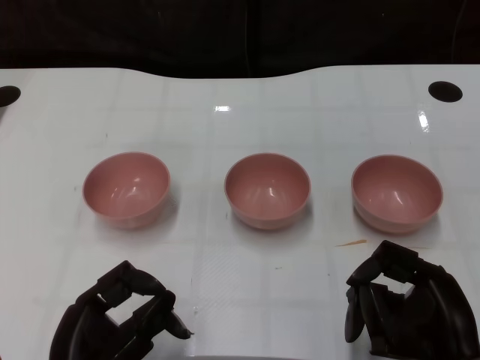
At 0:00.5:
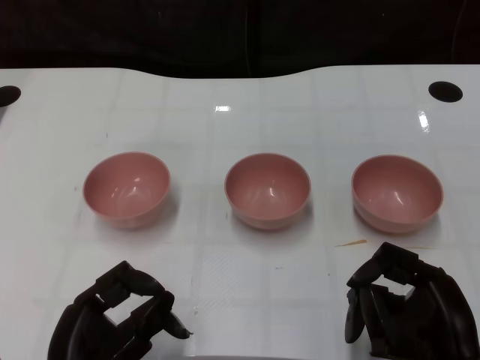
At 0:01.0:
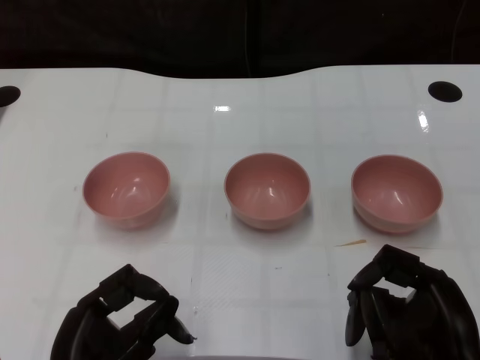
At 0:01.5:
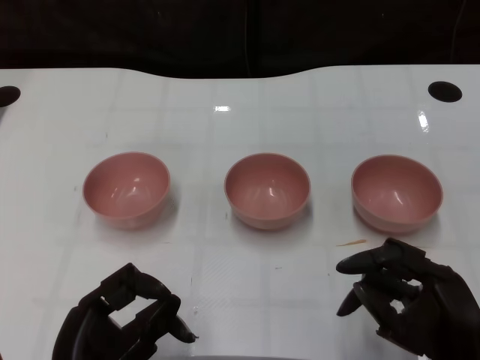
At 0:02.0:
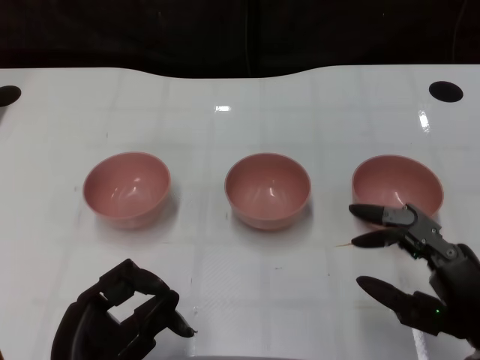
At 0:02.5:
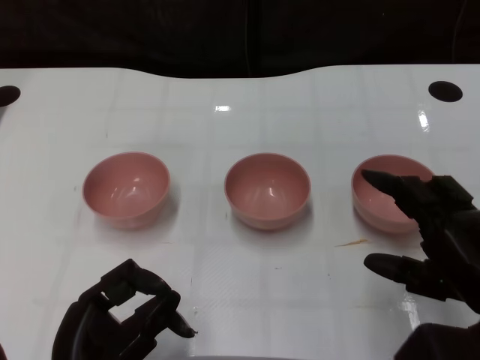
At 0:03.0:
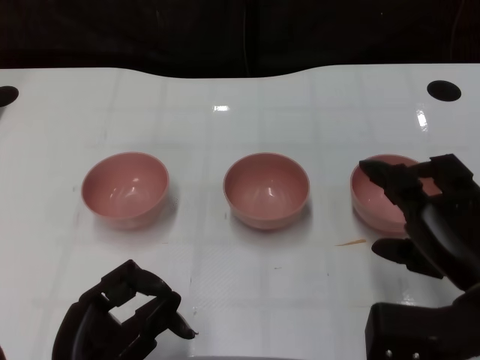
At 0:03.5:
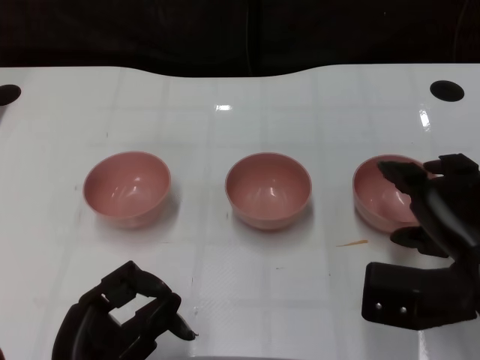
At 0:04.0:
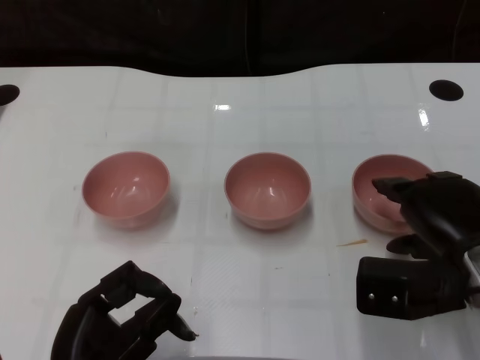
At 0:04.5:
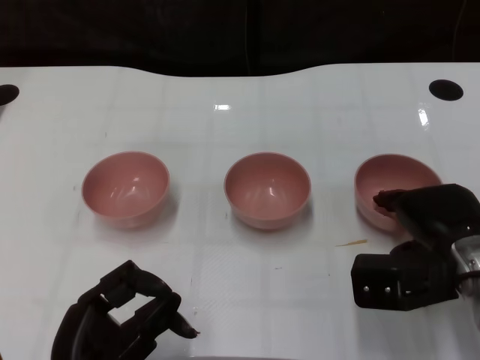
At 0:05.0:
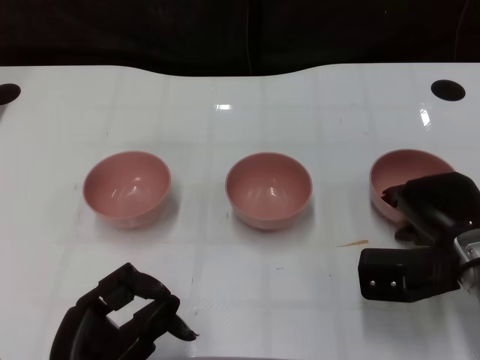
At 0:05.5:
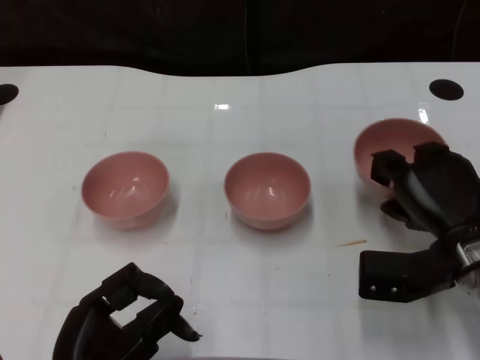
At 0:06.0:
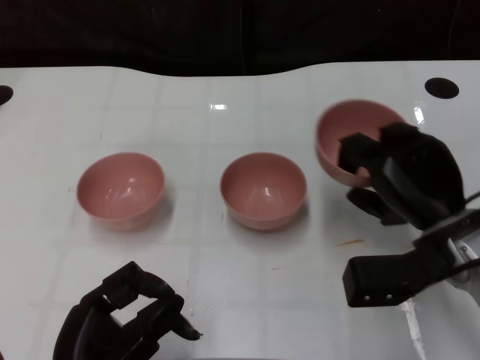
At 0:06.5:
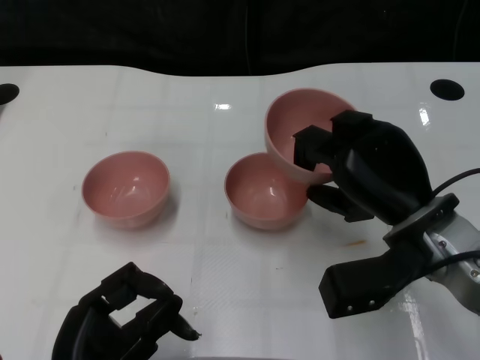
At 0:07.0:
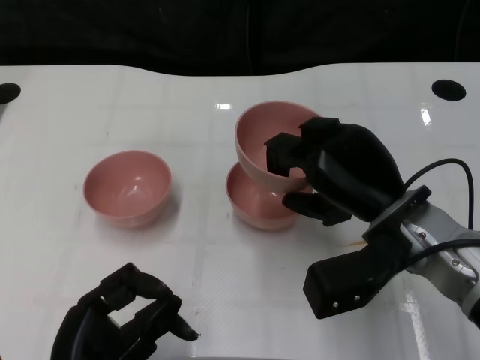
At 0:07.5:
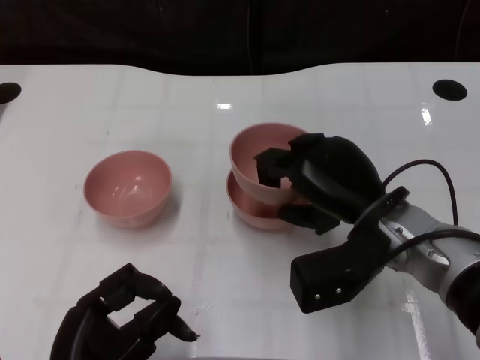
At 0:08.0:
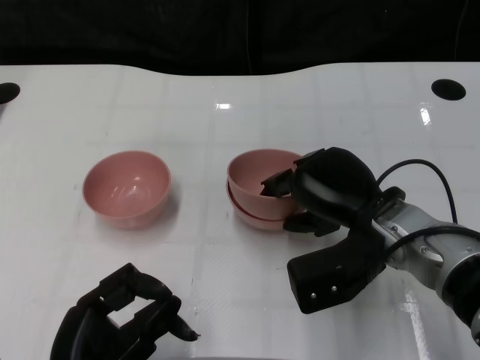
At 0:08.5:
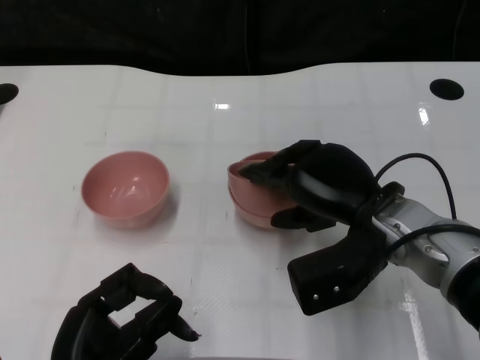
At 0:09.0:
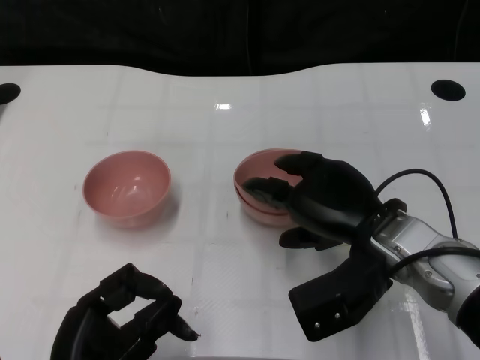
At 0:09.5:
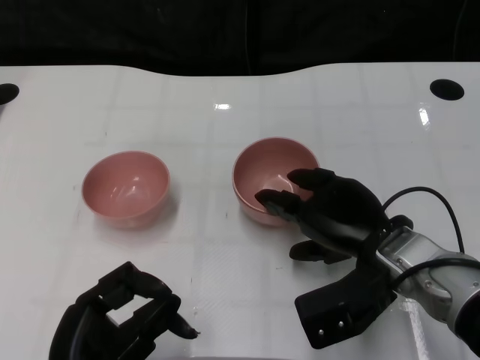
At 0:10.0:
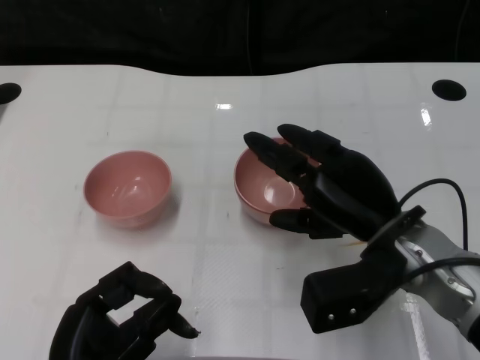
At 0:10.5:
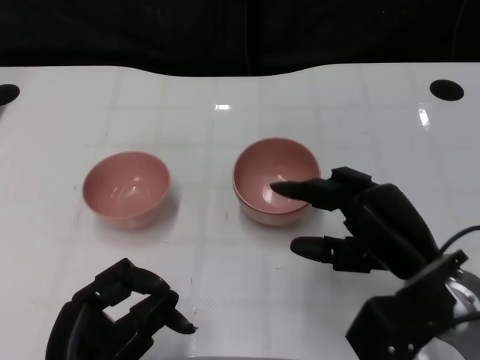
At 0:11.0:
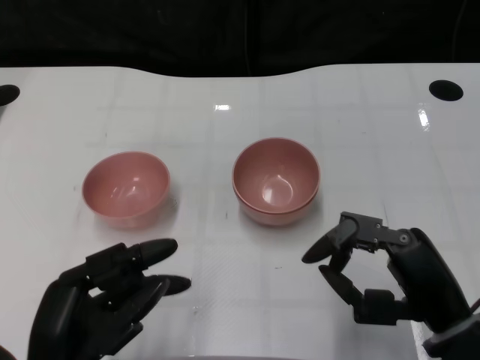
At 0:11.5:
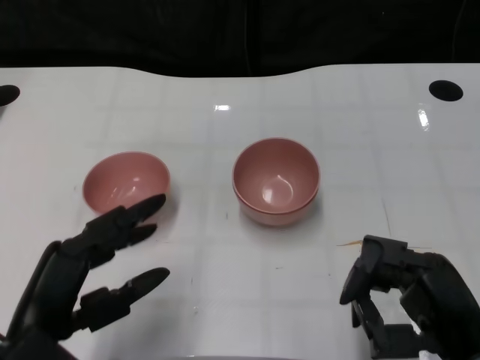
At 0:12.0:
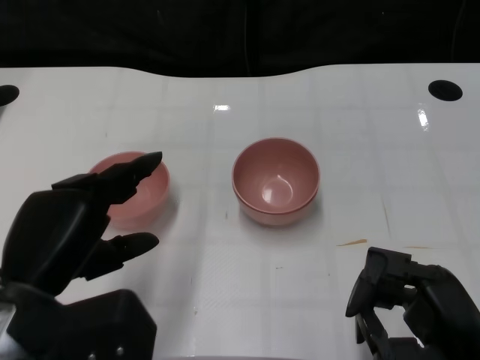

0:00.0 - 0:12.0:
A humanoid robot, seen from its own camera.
Task of the whole recording: Pick up the bowl on one side of the table and place it on top of the middle bowl, then pick up the bowl on the other side of the table and place it on top of the middle bowls.
Step, 0:01.5 - 0:05.0: Grasp the bowl on the right with the right gripper.
Step, 0:05.5 - 0:10.0: Place the bowl on the right onto the bowl in the middle with right gripper.
0:02.0 - 0:04.0: The right hand travels forward by some 10 cm.
0:06.0 - 0:08.0: The right hand is displaced to the left by approximately 5 cm.
0:08.0 - 0:10.0: There are only small adjustments of the hands.
0:10.0 - 0:12.0: The right hand heads backward and to the right, covering some 15 cm. The left hand goes some 10 cm upward and forward.

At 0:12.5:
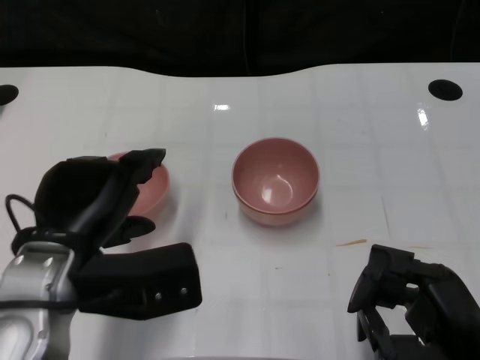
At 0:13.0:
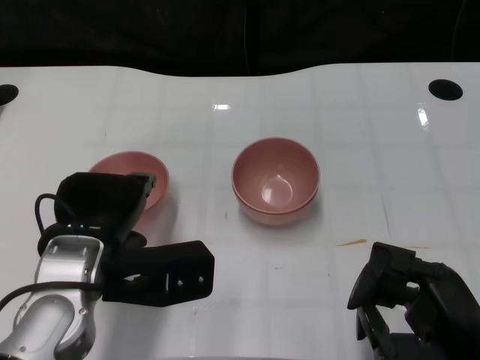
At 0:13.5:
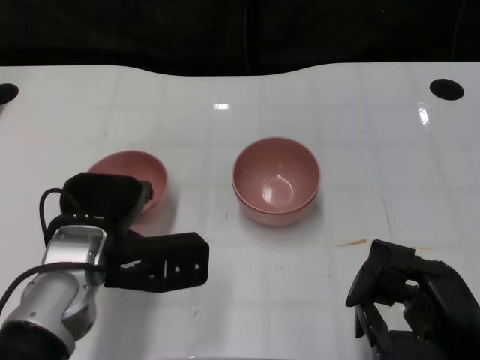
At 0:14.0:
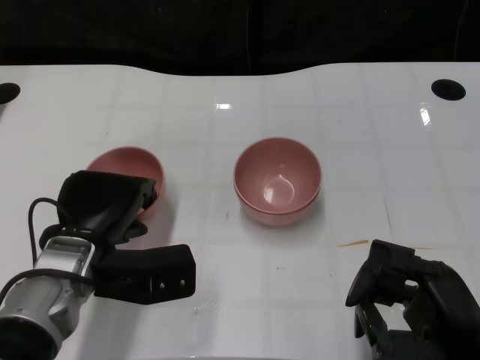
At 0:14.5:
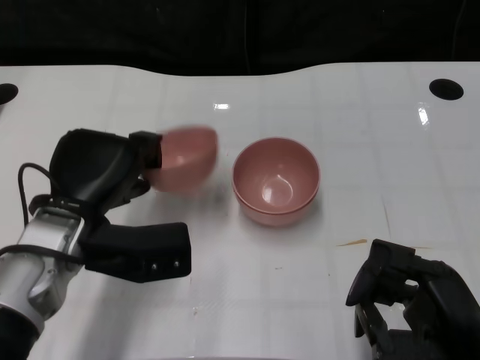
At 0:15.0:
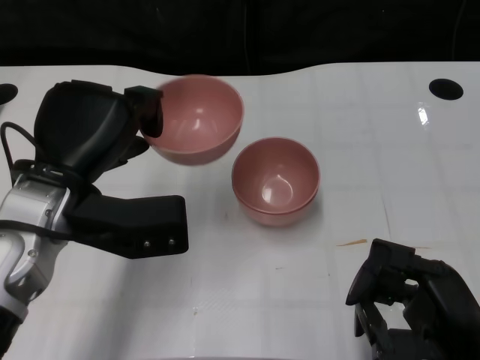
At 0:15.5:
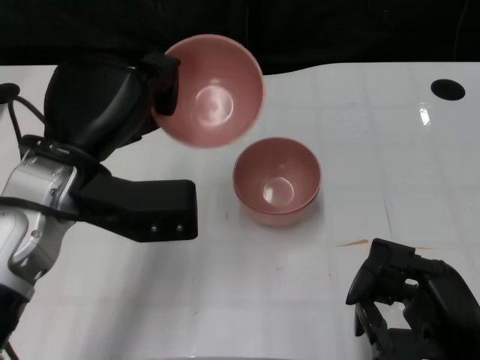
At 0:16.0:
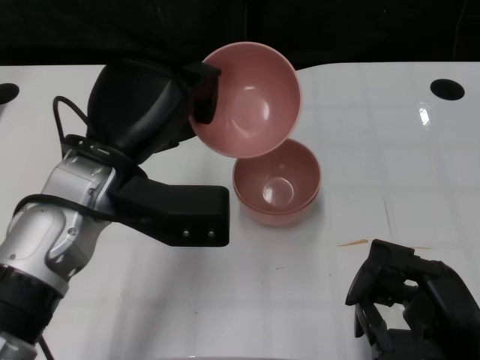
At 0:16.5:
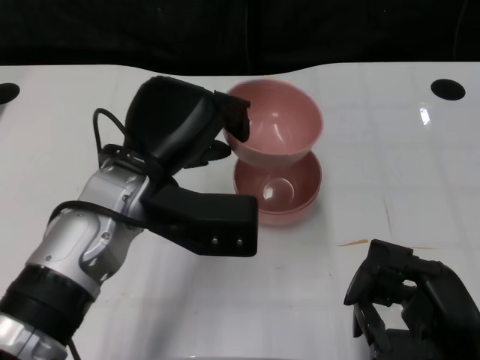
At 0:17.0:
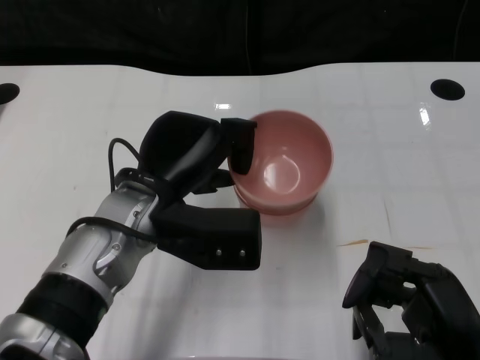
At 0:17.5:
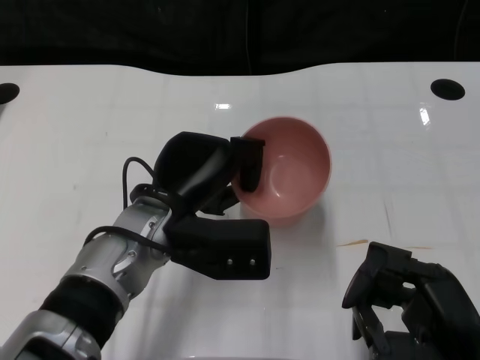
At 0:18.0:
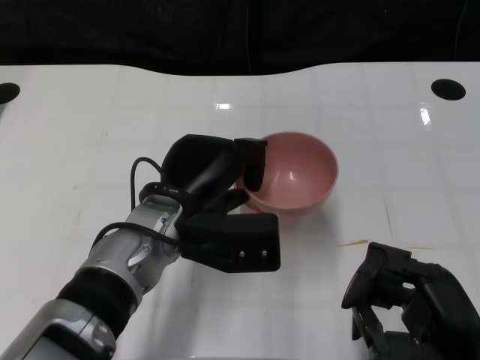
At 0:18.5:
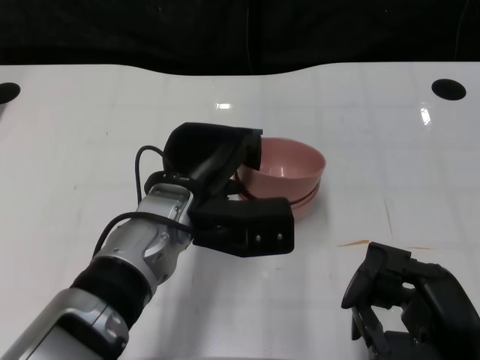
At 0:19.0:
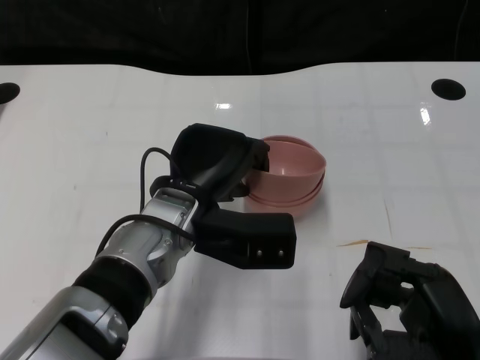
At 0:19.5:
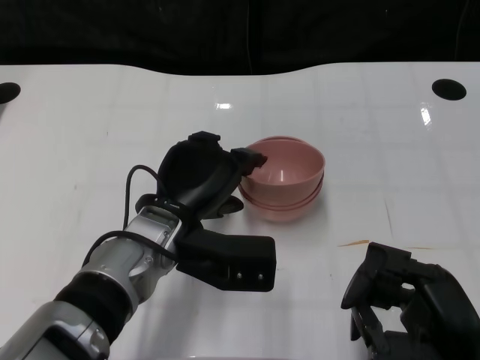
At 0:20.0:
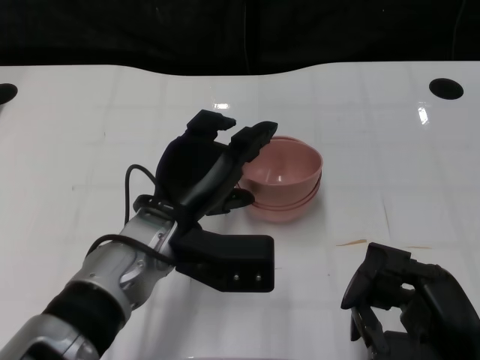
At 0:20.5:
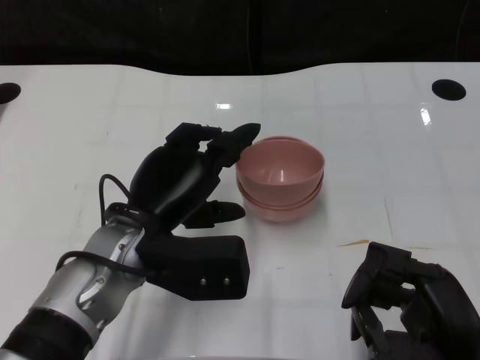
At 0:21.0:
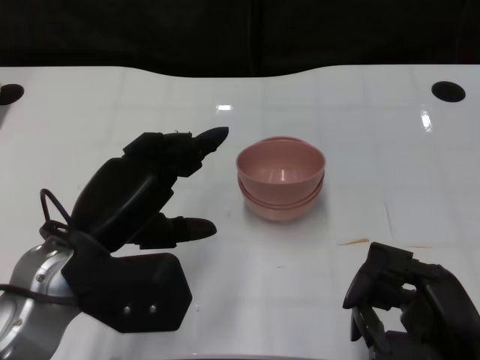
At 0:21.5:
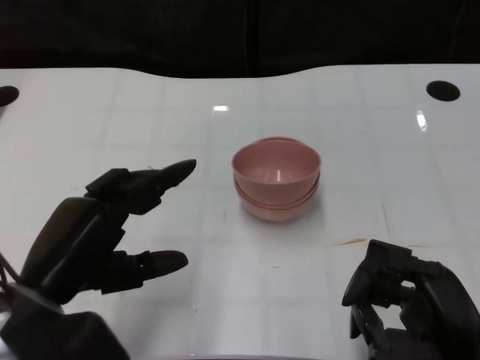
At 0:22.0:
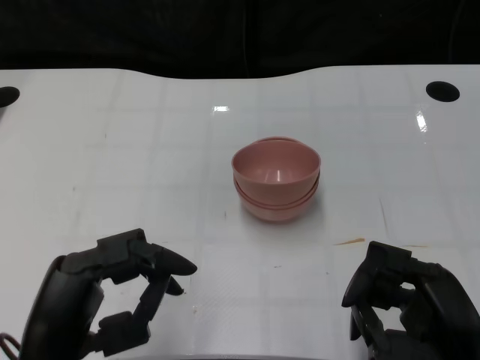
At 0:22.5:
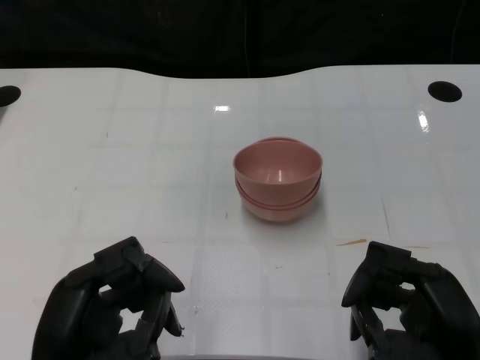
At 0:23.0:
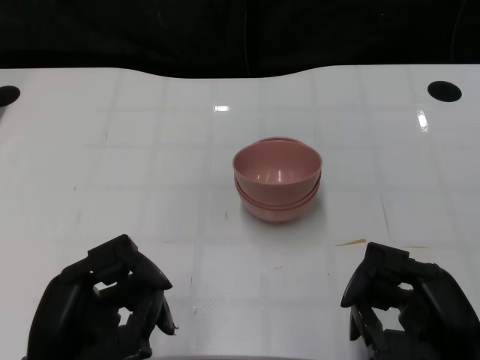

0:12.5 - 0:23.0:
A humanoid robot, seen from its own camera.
Task of the whole recording: Pick up the bowl on one side of the table and place it on top of the middle bowl, then pick up the bowl on the other side of the table and place it on top of the middle bowls.
Step, 0:15.0 - 0:20.5: Place the bowl on the left onto the bowl in the middle with left gripper.
0:12.5 - 0:14.5: The left hand heads forward, covering about 5 cm.
0:14.5 - 0:16.5: The left hand moves to the right and upward, approximately 10 cm.
0:16.5 - 0:19.0: The left hand travels downward by some 5 cm.
0:19.0 - 0:21.0: The left hand moves to the left and backward, about 10 cm.
0:21.0 - 0:23.0: The left hand shifts some 10 cm backward and downward.

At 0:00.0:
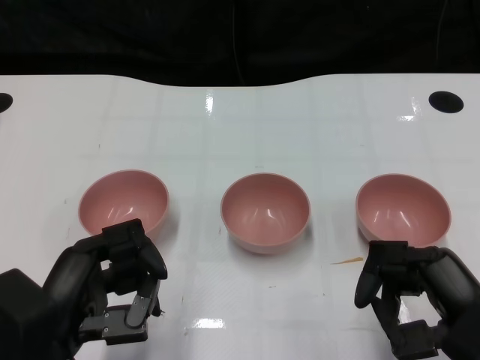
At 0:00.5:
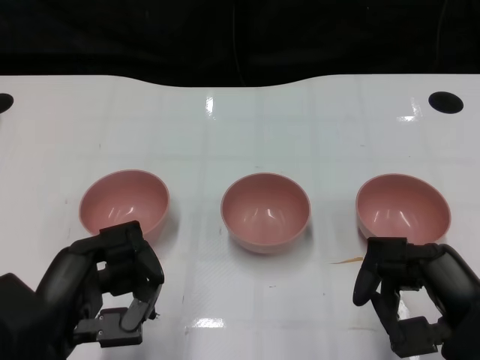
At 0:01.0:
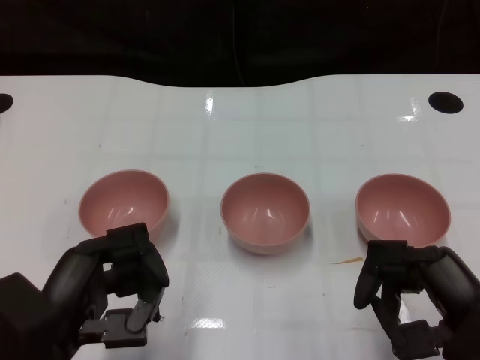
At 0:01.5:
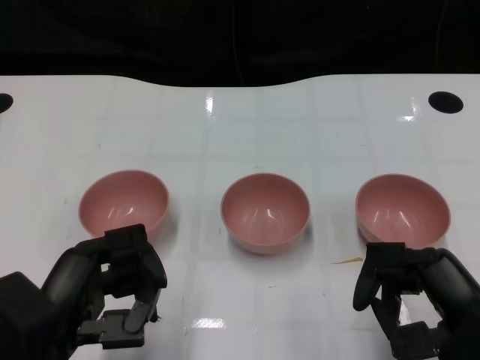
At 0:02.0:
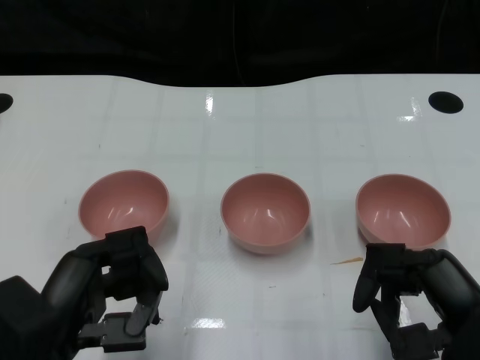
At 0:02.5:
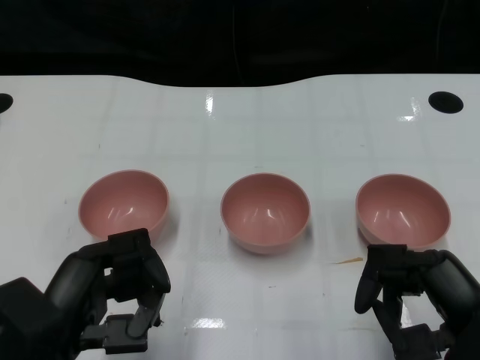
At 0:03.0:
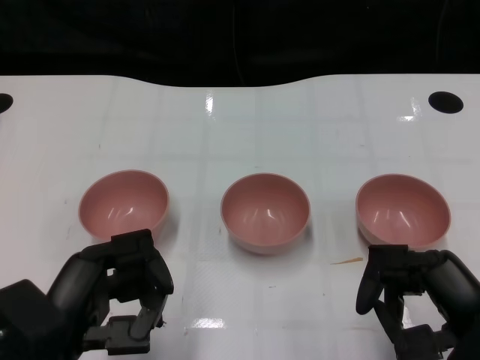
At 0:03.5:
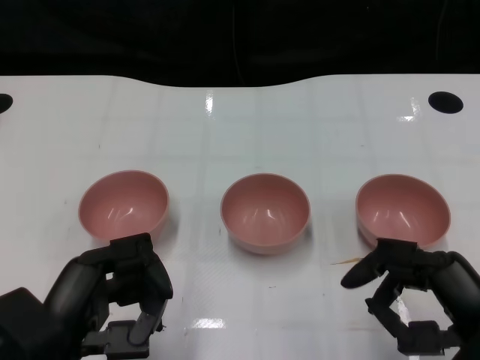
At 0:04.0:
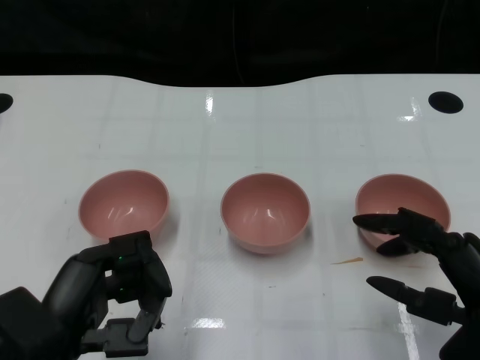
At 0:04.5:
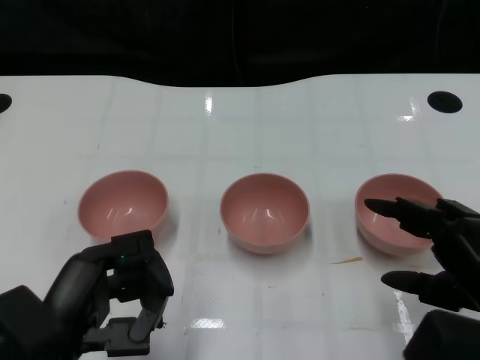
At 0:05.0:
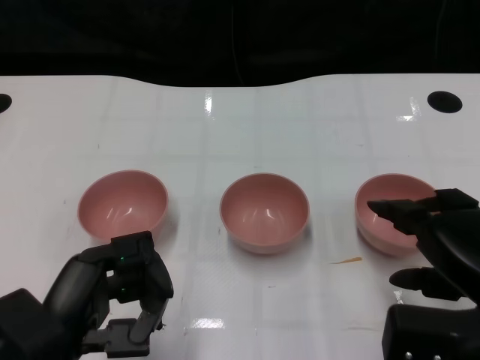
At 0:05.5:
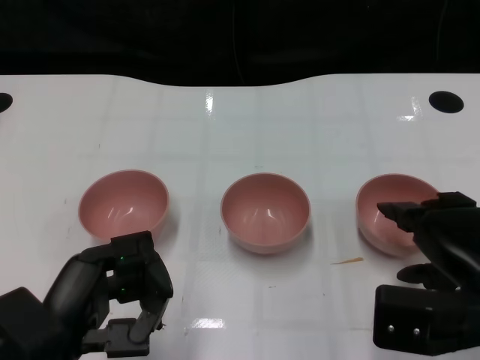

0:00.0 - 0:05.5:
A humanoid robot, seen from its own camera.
Task of the whole recording: Pick up the bowl on one side of the table and place it on top of the middle bowl, then pick up the bowl on the other side of the table and place it on top of the middle bowls.
0:02.0 - 0:03.5: Both hands stay put.
0:03.5 - 0:05.5: The right hand goes roughly 5 cm forward.
